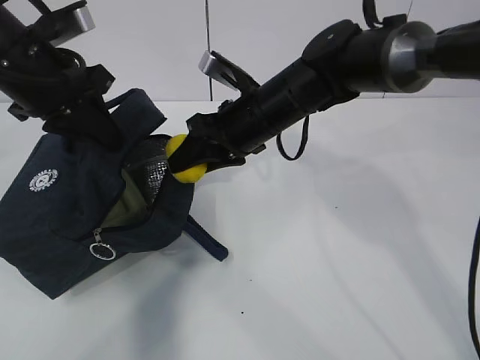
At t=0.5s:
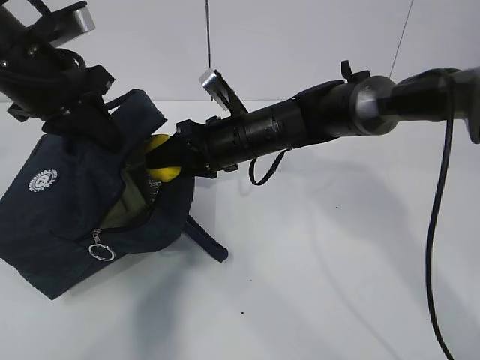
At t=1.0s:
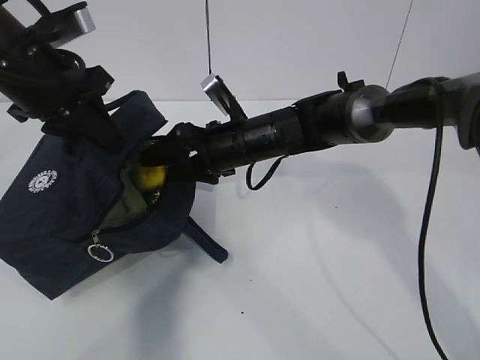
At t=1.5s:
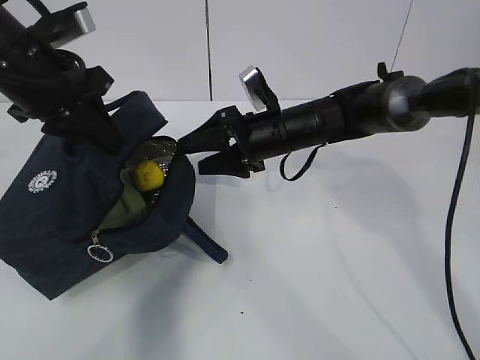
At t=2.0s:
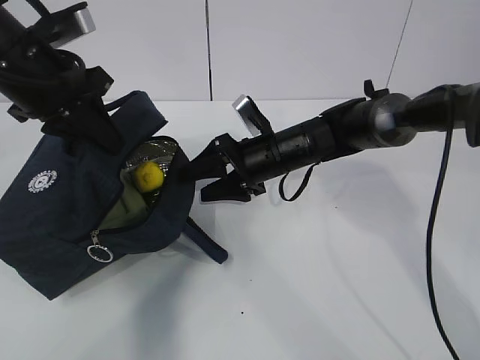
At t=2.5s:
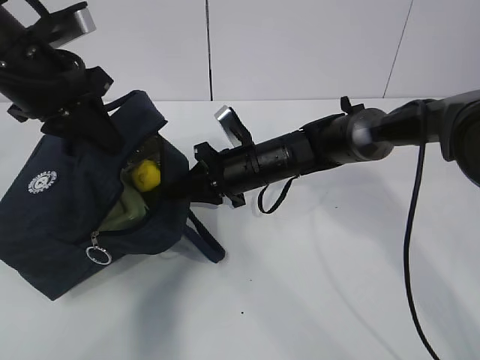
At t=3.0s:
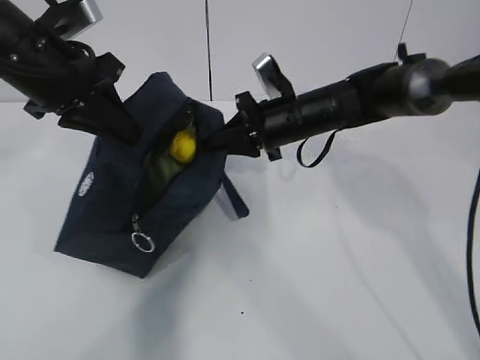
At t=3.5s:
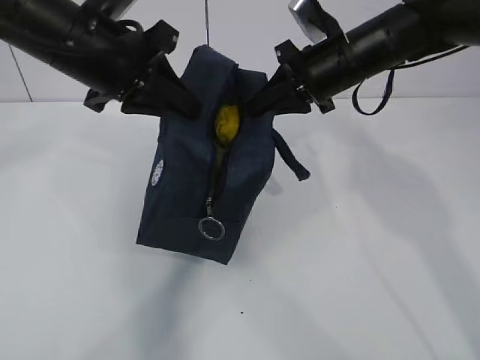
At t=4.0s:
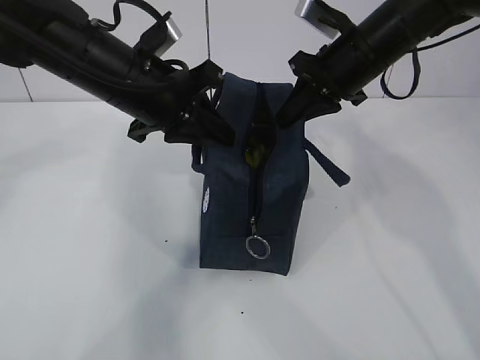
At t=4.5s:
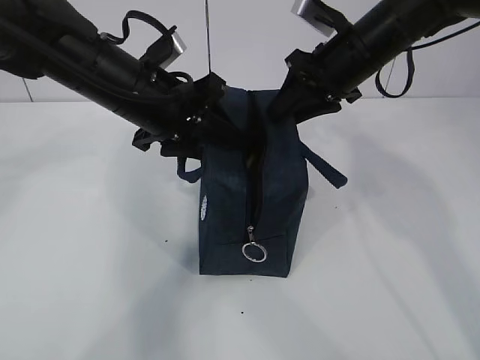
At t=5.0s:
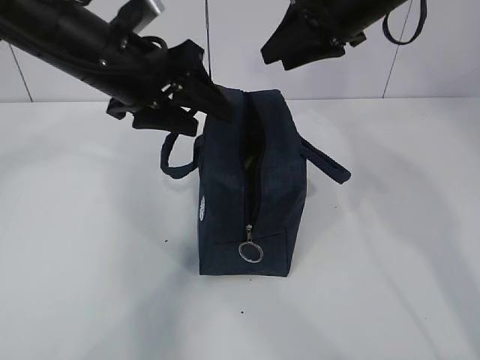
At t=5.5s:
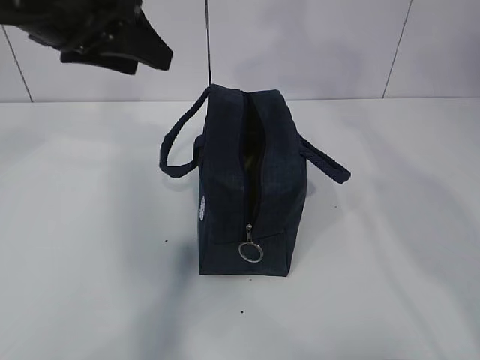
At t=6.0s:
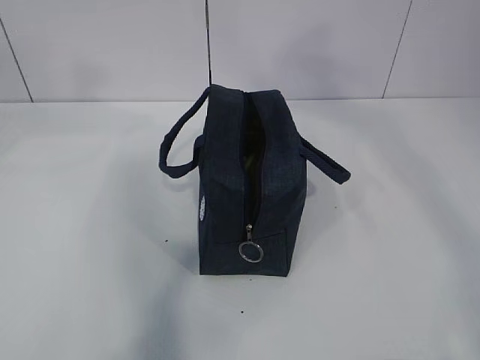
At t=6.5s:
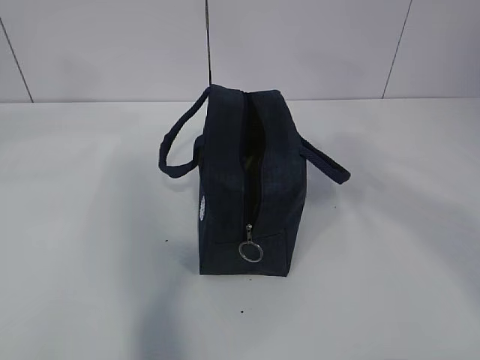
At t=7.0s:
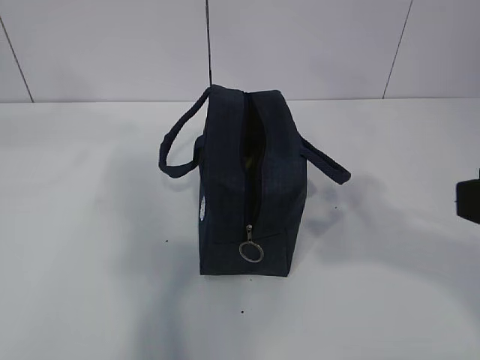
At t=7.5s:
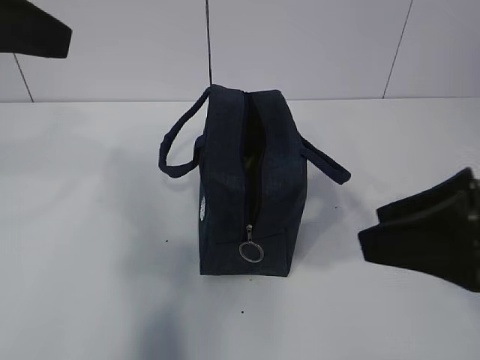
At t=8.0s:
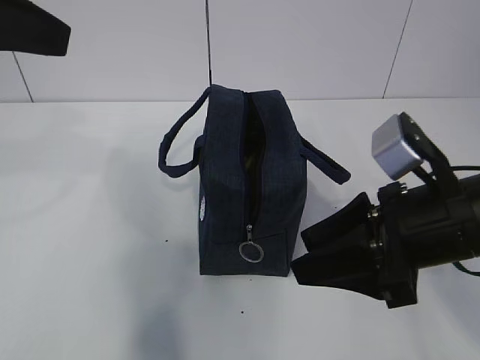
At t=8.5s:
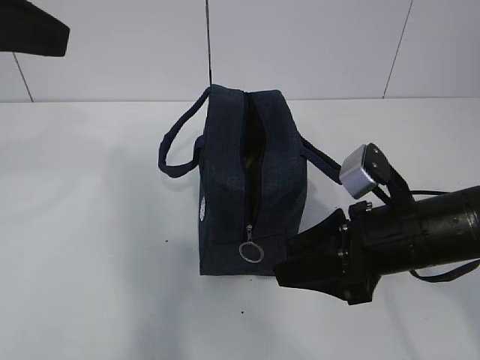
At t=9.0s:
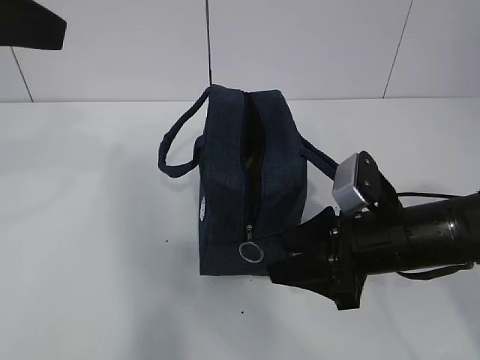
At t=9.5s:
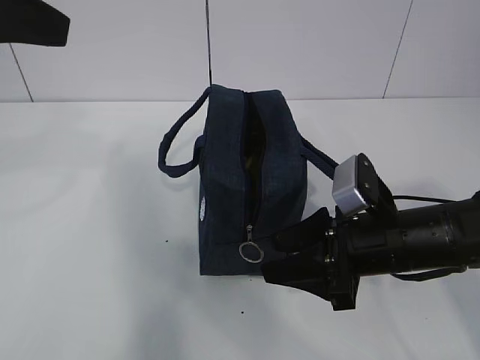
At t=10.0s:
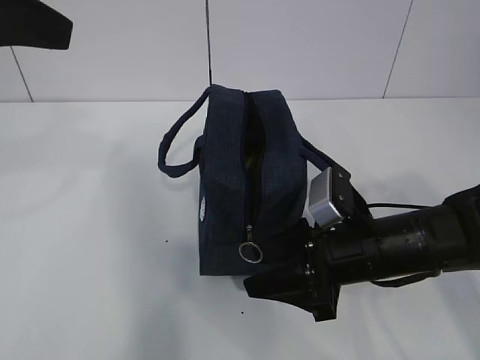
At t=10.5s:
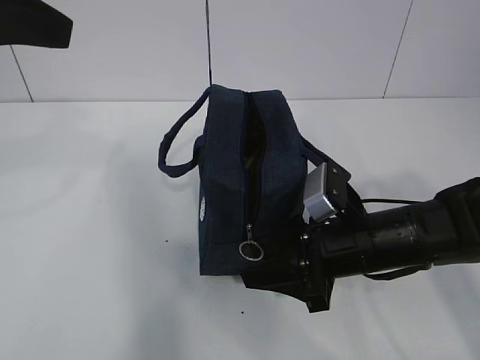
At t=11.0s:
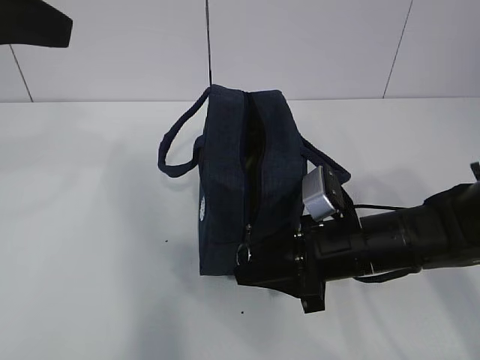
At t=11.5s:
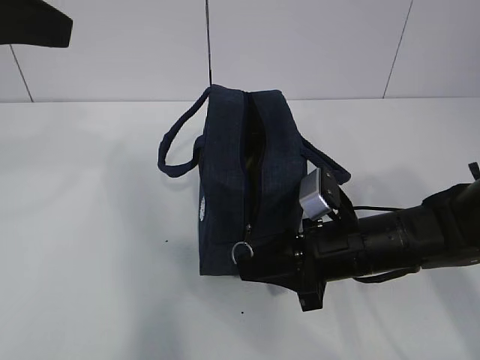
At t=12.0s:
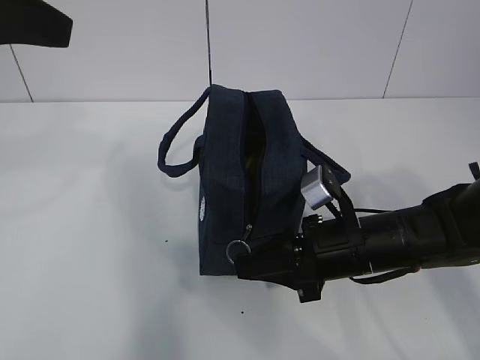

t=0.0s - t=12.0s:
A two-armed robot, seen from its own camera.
t=0.0s - t=2.0s: The right gripper goes some 10 cm downward, and opens its fingers.
t=2.0s - t=4.0s: The right gripper shifts roughly 15 cm upward and to the right, and closes up. Meanwhile the left gripper goes approximately 10 cm to the right.
t=4.0s - t=6.0s: The right gripper goes about 35 cm upward and backward, and opens its fingers, while the left gripper is displaced upward, to the left and backward by about 20 cm, and opens.
t=6.0s - t=8.0s: The right gripper moves downward, roughly 35 cm, while the left gripper travels backward by about 5 cm.
t=8.0s - t=10.0s: The right gripper is displaced downward by some 10 cm.
t=10.0s - t=12.0s: The right gripper closes.

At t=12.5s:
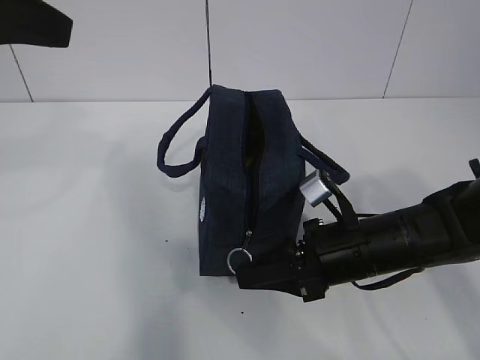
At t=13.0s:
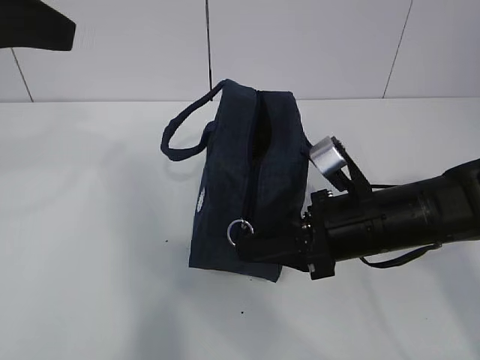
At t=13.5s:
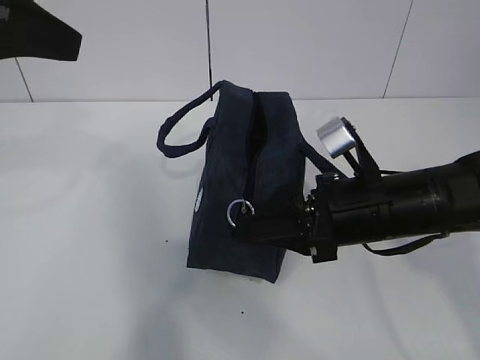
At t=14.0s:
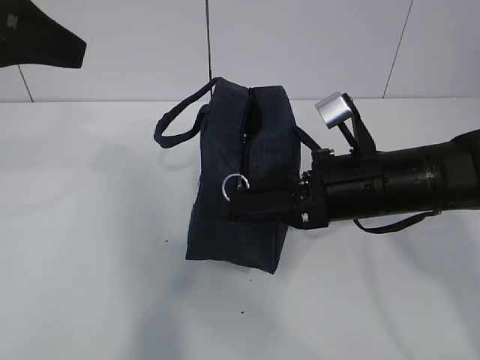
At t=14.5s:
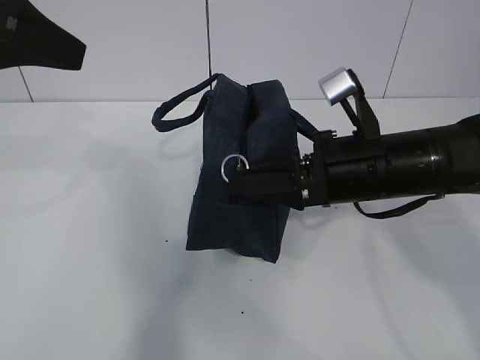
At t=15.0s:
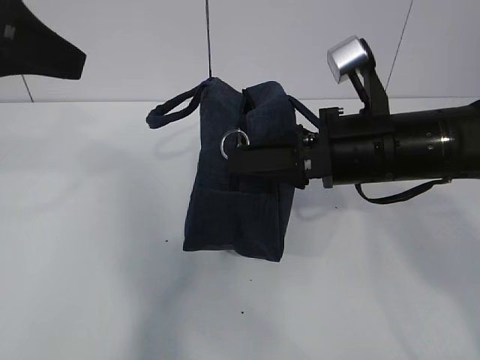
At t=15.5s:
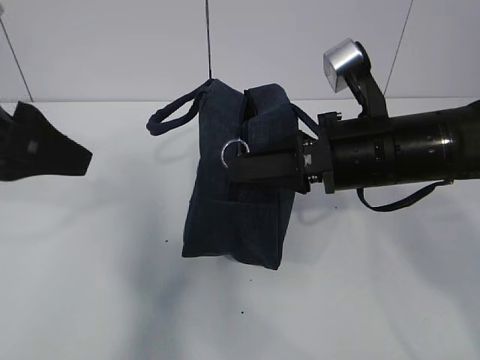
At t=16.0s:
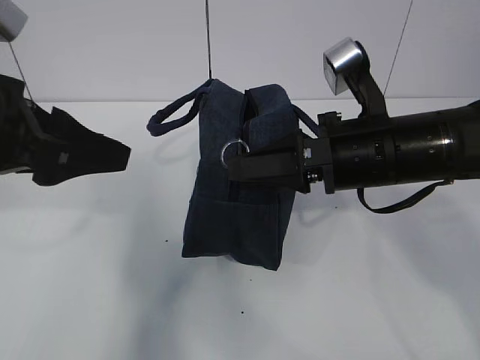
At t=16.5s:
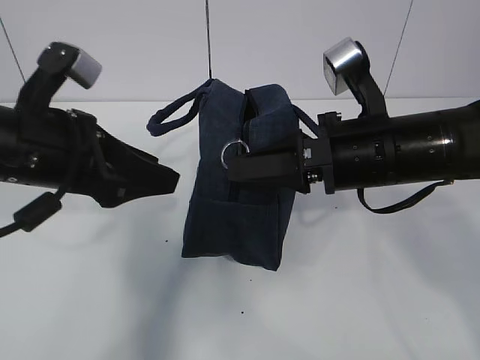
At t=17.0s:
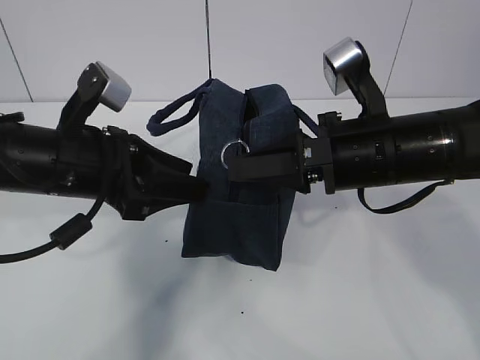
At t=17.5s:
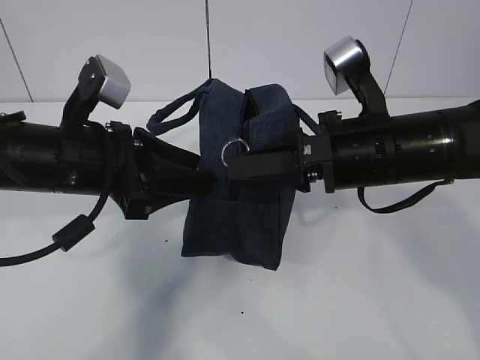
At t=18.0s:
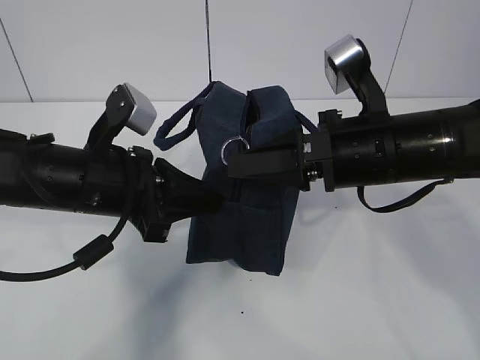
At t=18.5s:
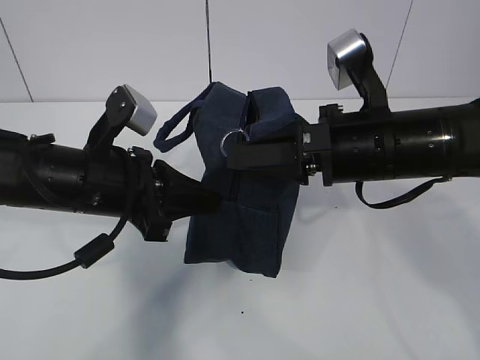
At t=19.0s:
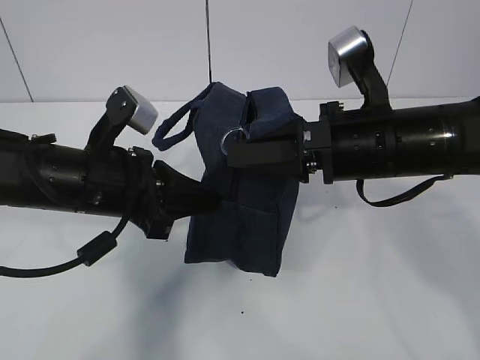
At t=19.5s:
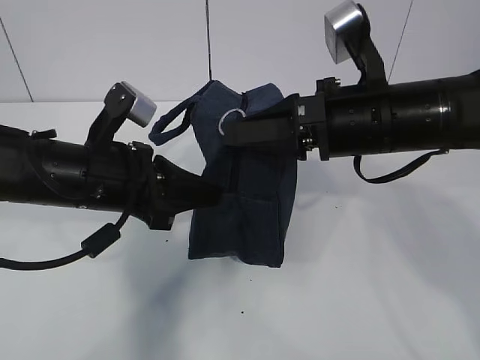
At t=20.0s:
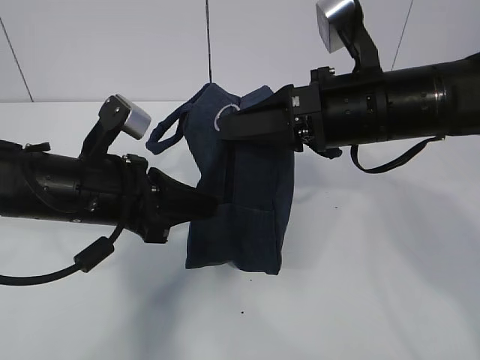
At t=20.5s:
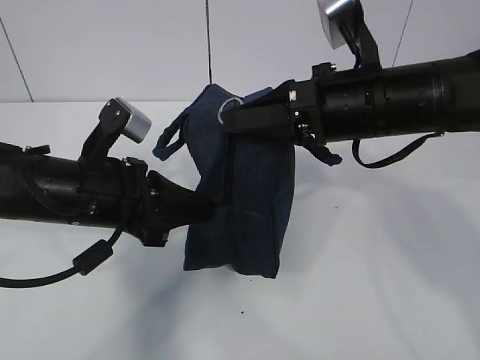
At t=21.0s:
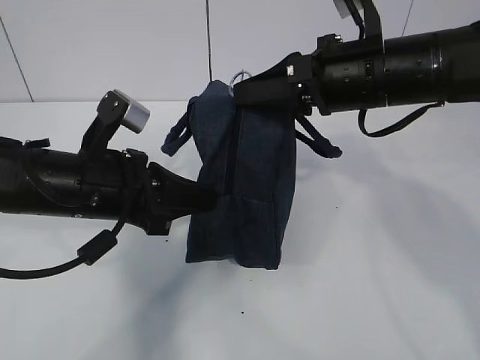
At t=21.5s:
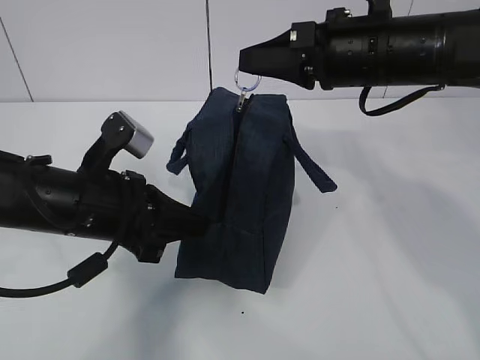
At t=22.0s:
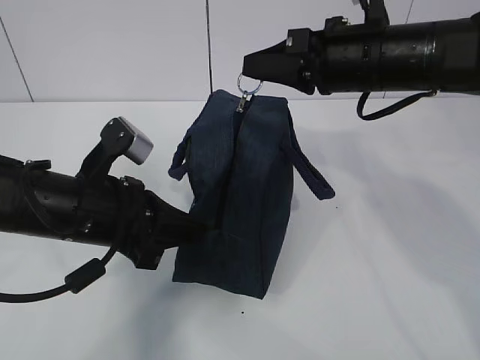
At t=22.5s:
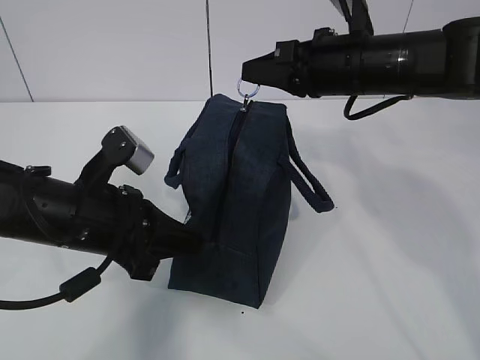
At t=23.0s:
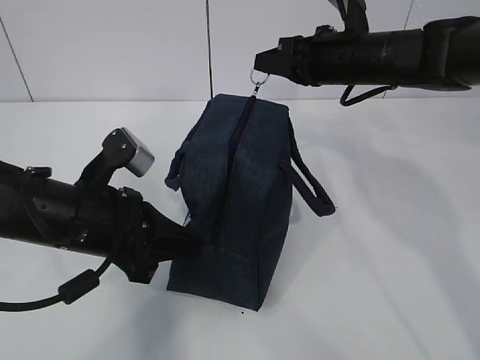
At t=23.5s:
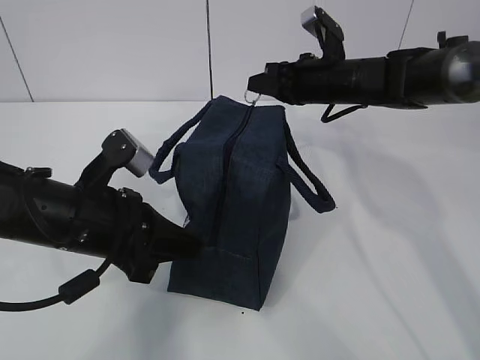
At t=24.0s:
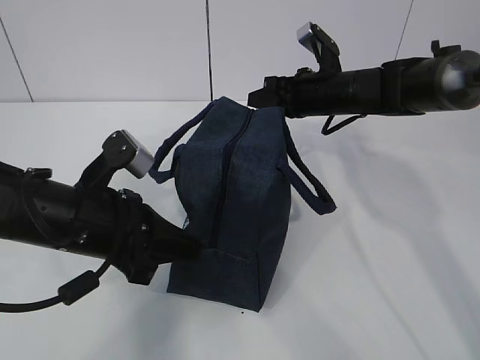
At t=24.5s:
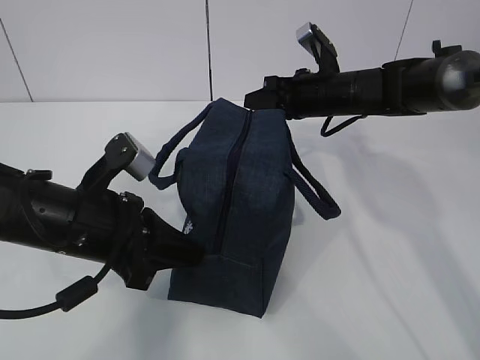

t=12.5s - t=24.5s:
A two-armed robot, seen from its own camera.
Step, t=12.5s - t=15.5s: Grab the lunch bag with your left hand.
Step, t=16.0s - t=19.5s: Pull the zipper with your right hand.
Step, t=20.0s - t=21.5s: Grab the lunch bag with your left hand.
t=12.5s - t=14.5s: The right gripper shifts approximately 10 cm upward.
t=14.5s - t=16.5s: The left gripper is displaced downward by about 15 cm.
t=16.5s - t=18.5s: The left gripper shifts by approximately 5 cm, and closes its fingers.
t=18.5s - t=20.5s: The grippers move only a little.
t=20.5s - t=22.5s: The right gripper goes about 5 cm forward.
t=22.5s - t=24.5s: The right gripper travels forward and downward by approximately 15 cm.

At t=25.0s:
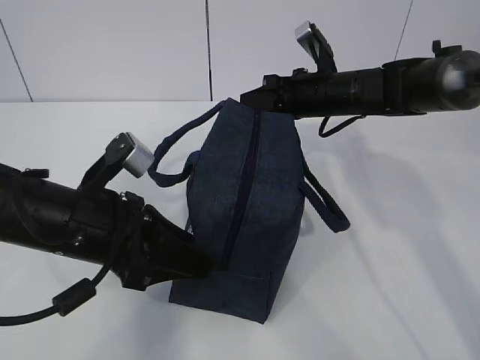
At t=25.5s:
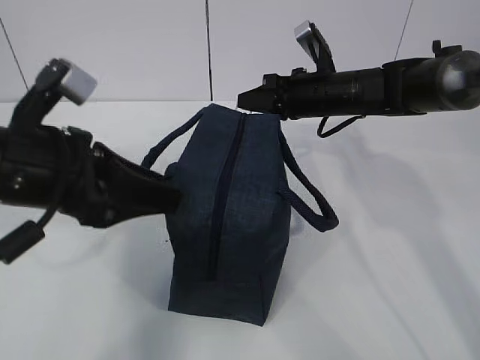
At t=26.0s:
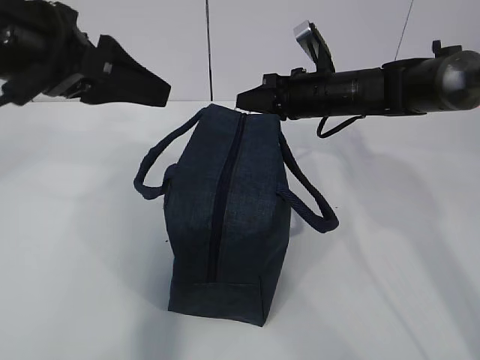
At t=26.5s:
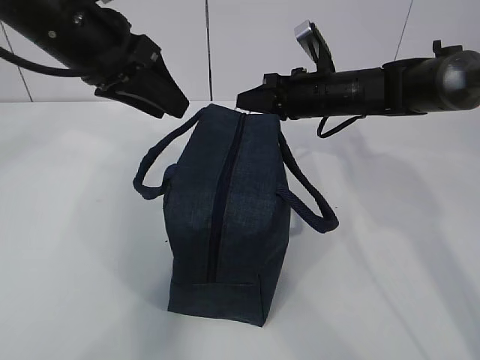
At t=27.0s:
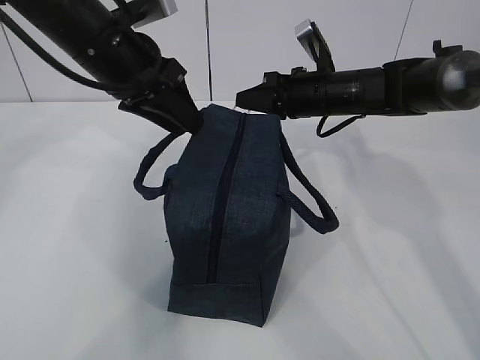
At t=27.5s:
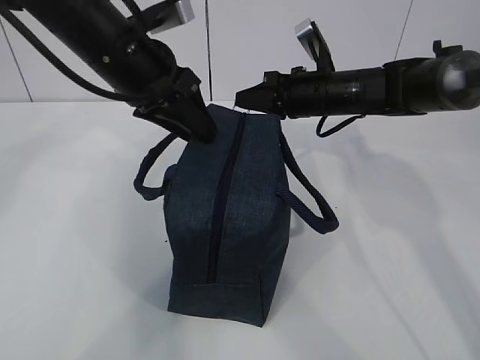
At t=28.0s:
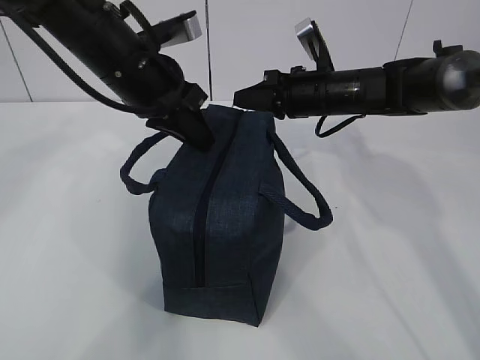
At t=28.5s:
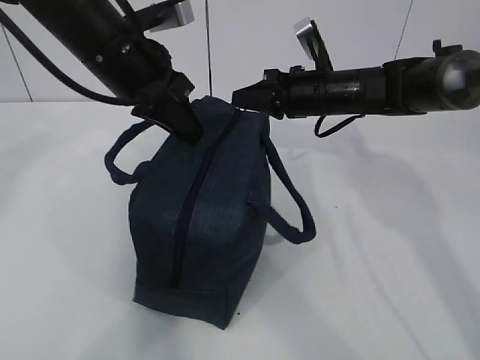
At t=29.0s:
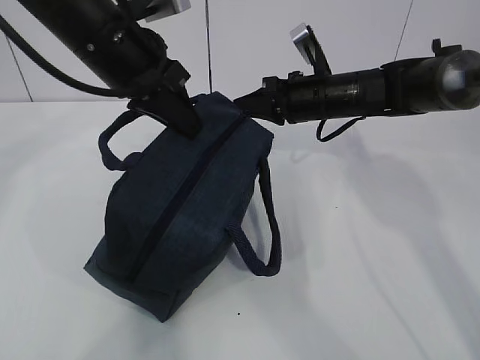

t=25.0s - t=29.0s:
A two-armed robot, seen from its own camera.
t=25.0s - t=27.0s: The left gripper is displaced forward and upward by approximately 15 cm.
t=27.0s - t=29.0s: The left gripper closes its fingers.
